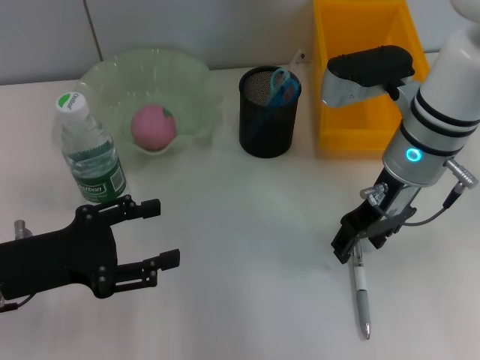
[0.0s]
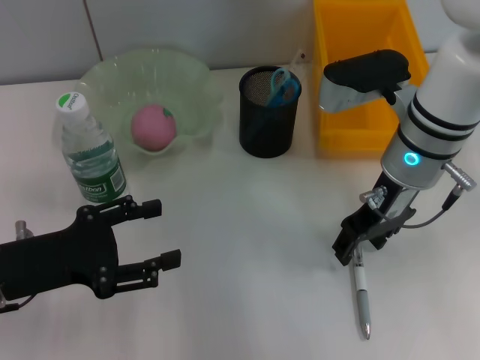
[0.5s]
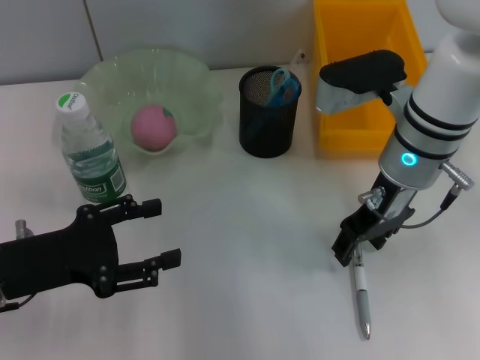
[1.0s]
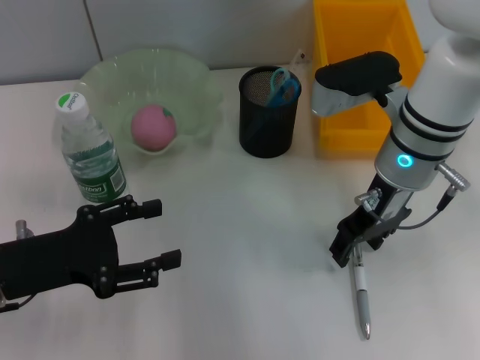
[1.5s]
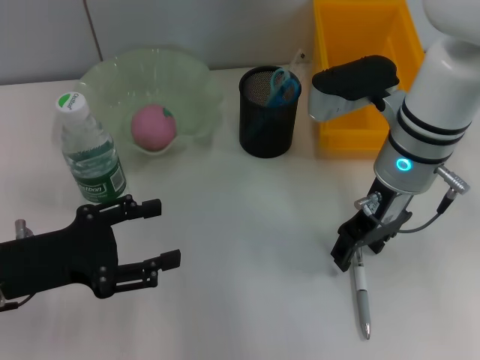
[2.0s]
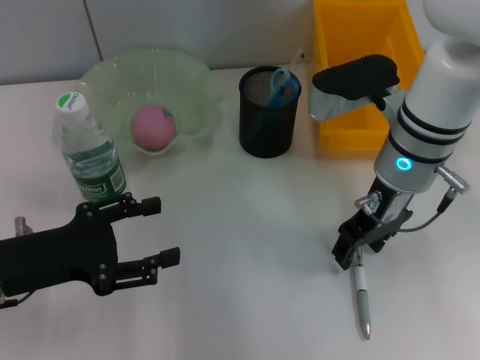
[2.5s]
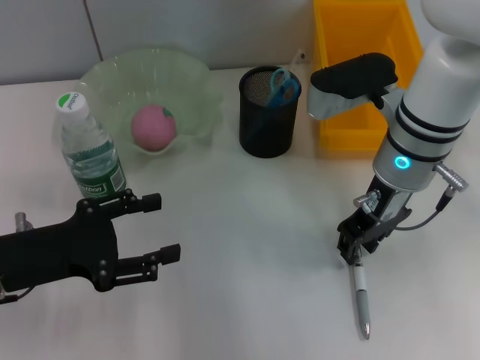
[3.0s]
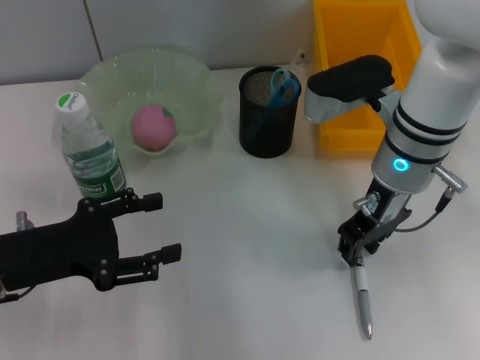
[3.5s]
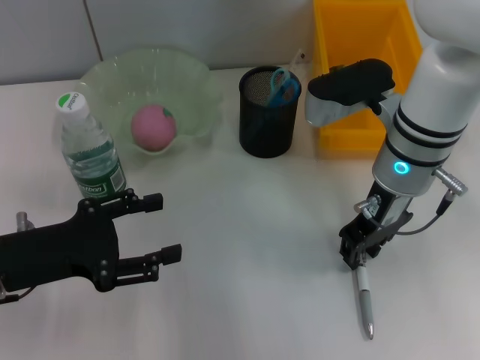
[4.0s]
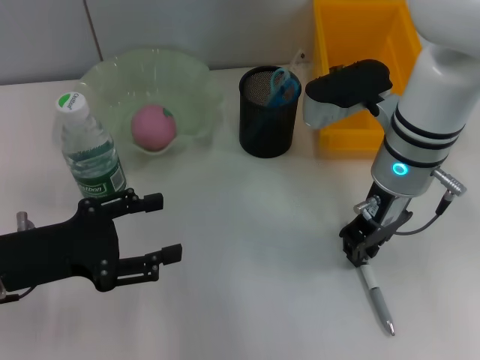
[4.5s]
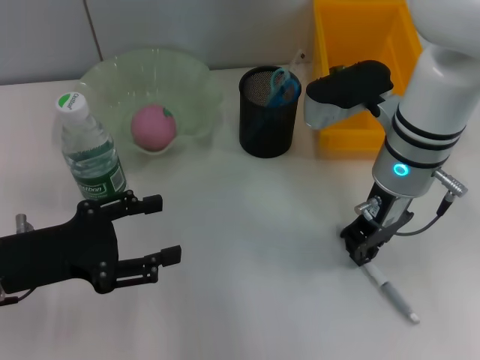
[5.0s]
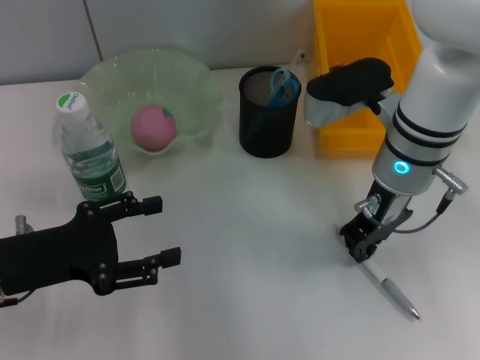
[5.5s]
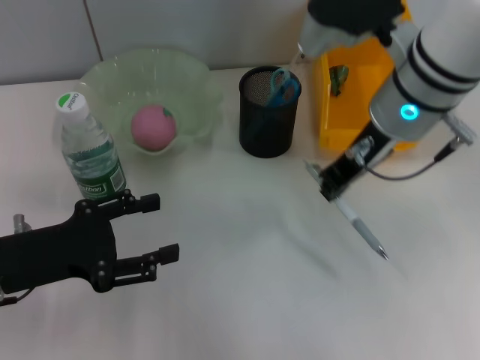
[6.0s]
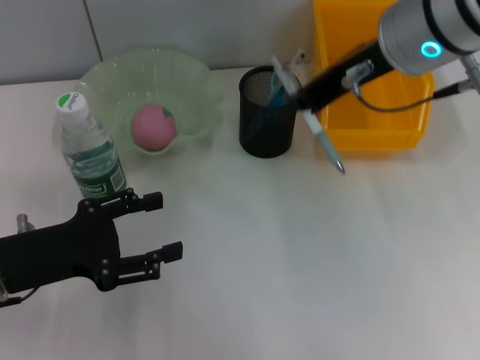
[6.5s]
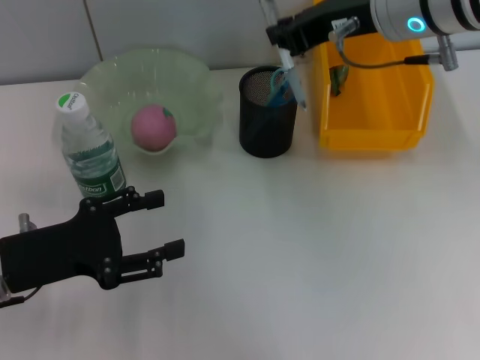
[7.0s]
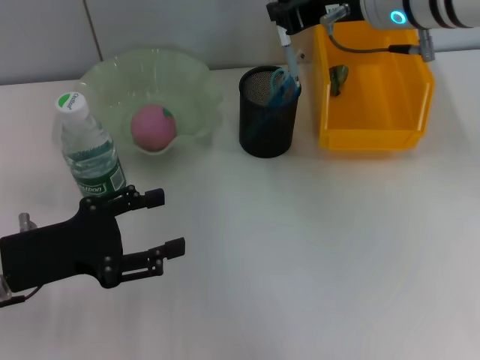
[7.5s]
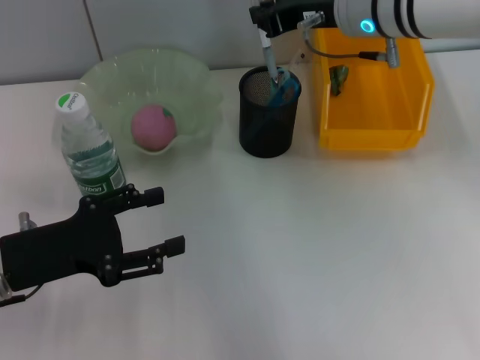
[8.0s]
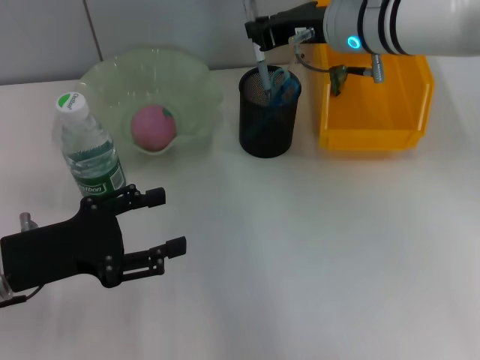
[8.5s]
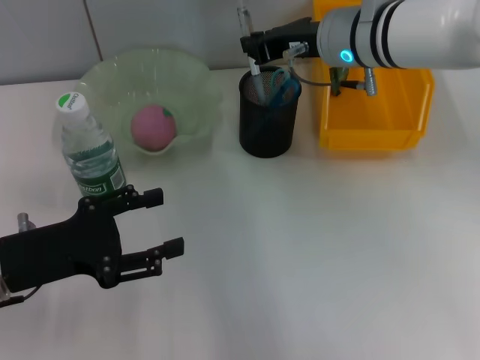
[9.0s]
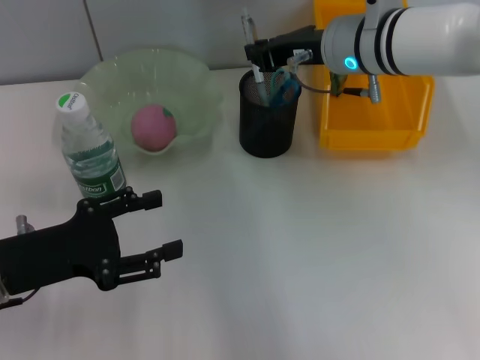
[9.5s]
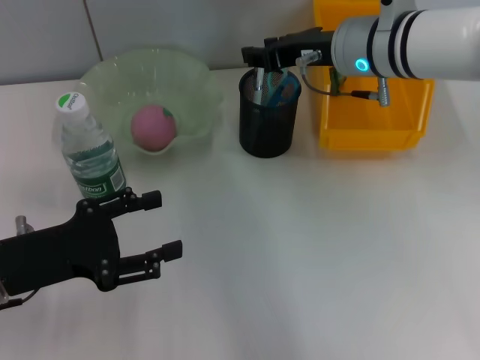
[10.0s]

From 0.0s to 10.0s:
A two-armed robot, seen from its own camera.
Step, from 0.0s to 5.0s: Grab the gray spring-action pen with the right hand.
Step, from 5.5s to 10.0s: Place the gray spring-action pen into the pen holder with the right hand.
From 0.0s to 2.0s: Neither gripper changes place.
From 2.0s to 4.0s: The right gripper closes up.
From 4.0s to 6.0s: The right gripper is displaced upward by roughly 5 cm, and closes its fingers.
From 6.0s to 8.0s: The right gripper shifts about 5 cm forward.
From 8.0s to 10.0s: The grippers make only small movements.

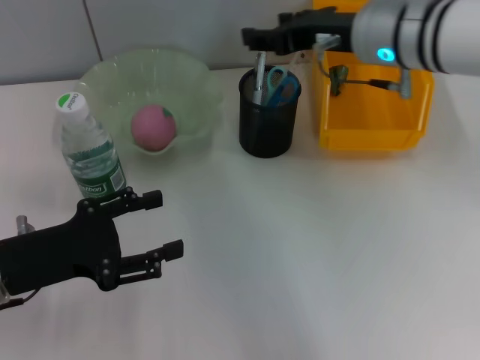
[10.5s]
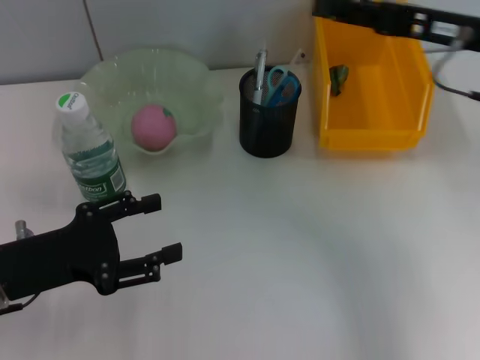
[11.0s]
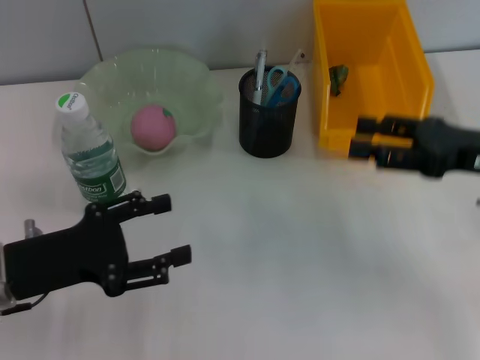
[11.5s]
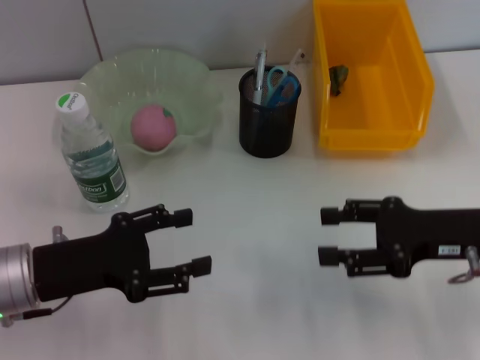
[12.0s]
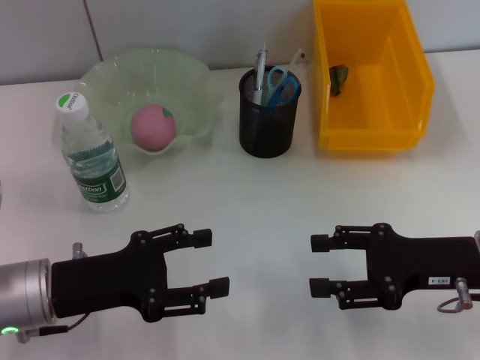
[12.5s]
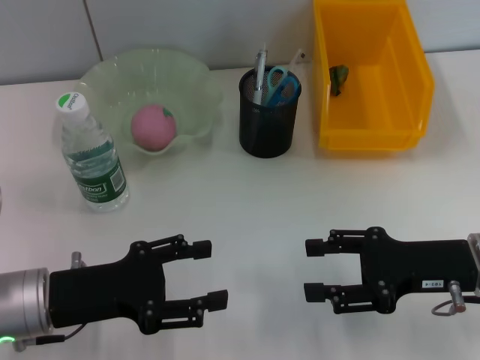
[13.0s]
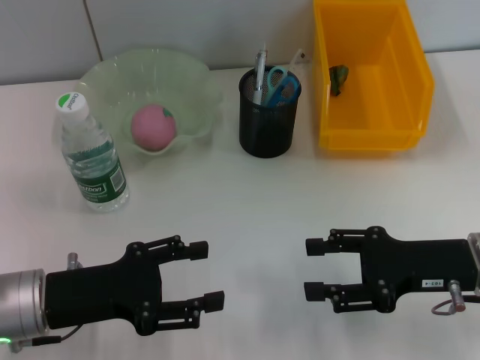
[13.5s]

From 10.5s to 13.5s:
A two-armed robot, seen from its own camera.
From 10.5s to 12.0s: The right gripper shifts approximately 20 cm backward, to the right and downward.
From 12.0s to 13.5s: The grippers stay close to where they were, moving slightly.

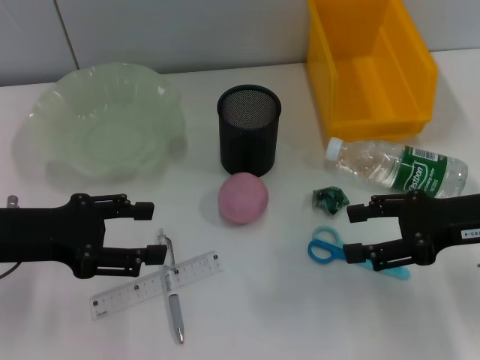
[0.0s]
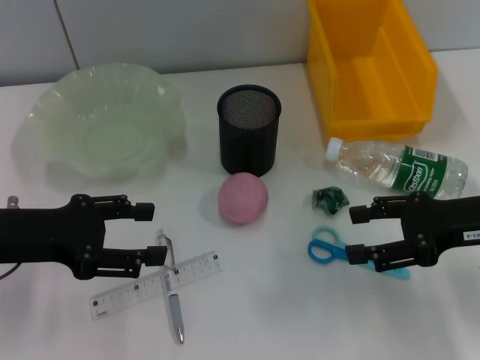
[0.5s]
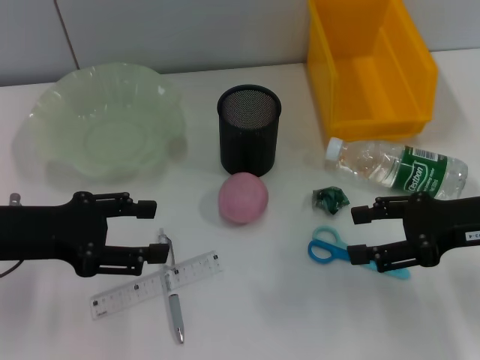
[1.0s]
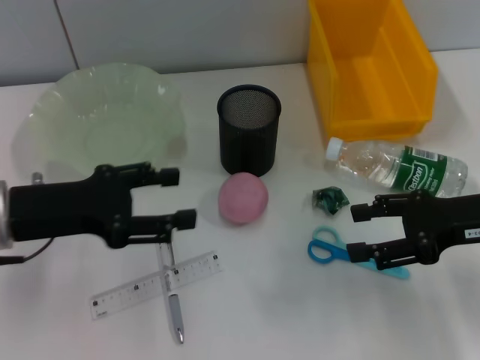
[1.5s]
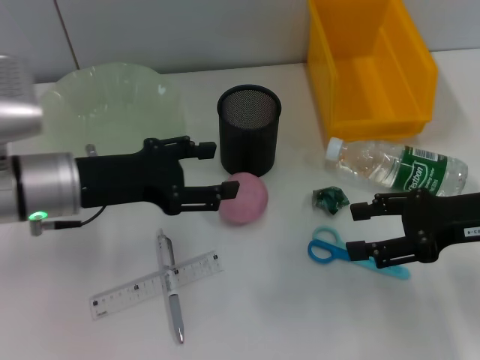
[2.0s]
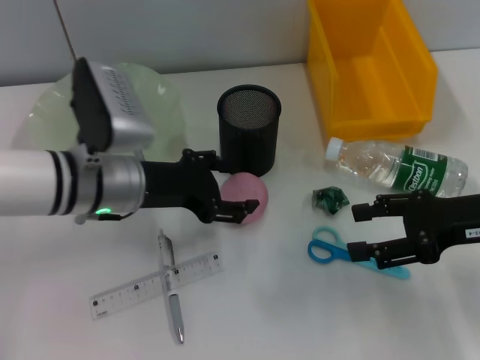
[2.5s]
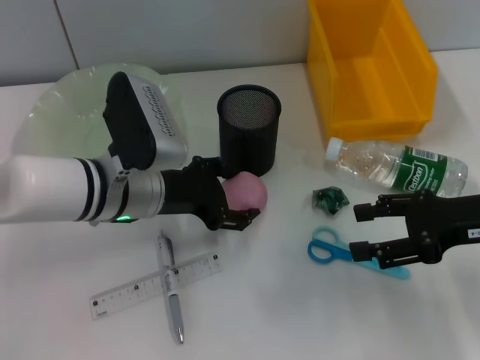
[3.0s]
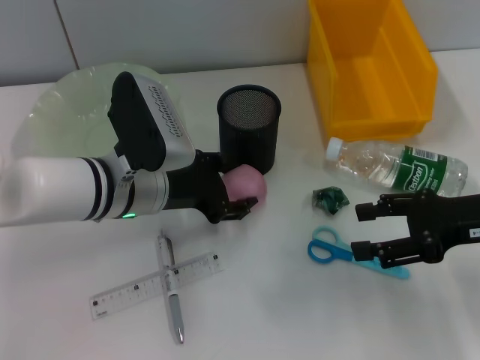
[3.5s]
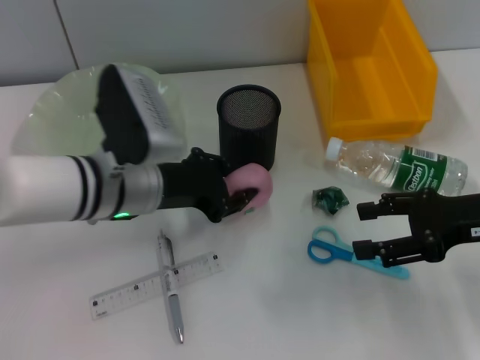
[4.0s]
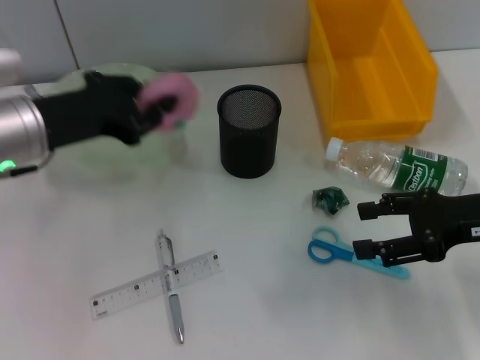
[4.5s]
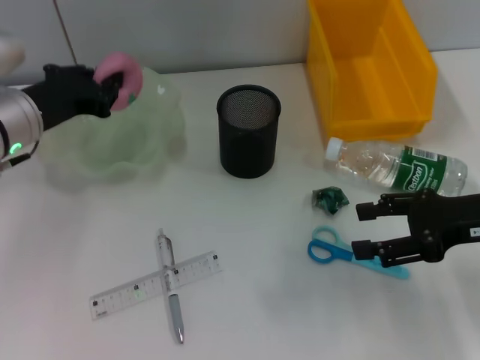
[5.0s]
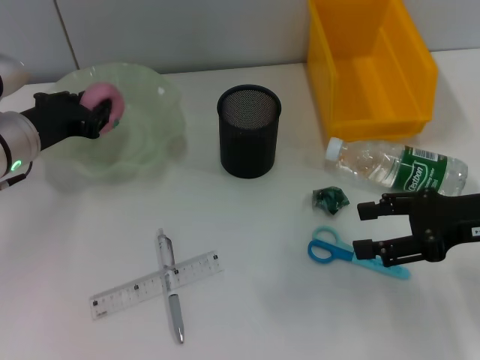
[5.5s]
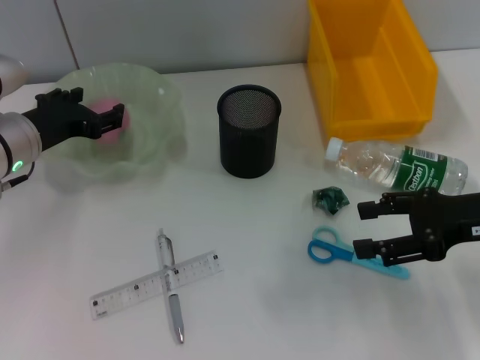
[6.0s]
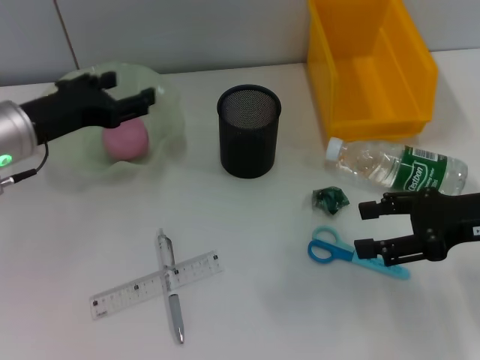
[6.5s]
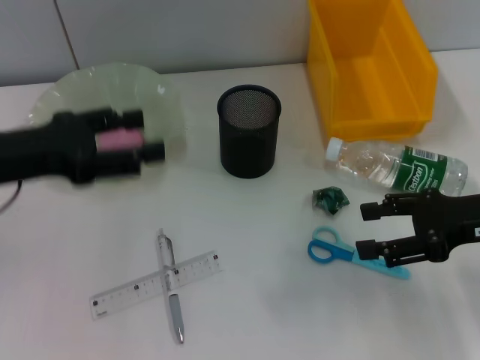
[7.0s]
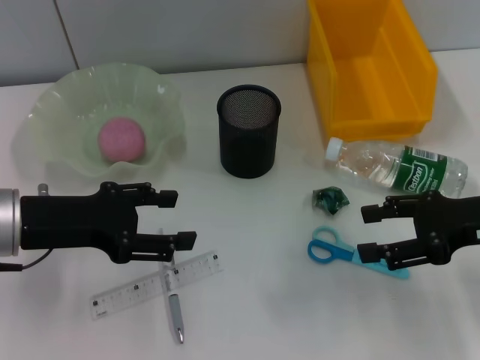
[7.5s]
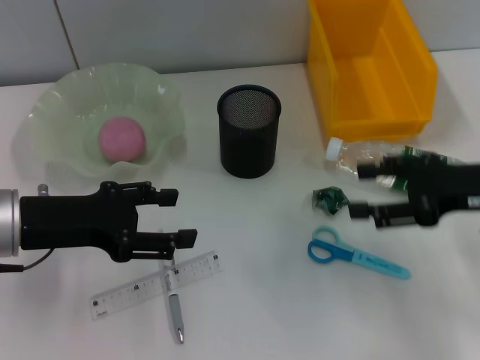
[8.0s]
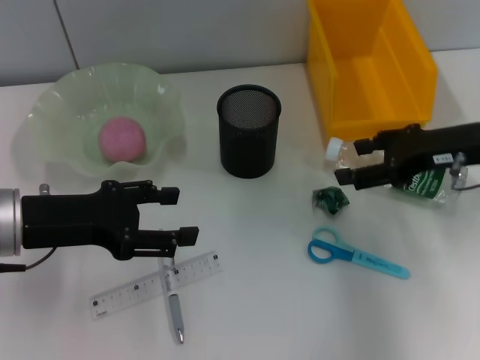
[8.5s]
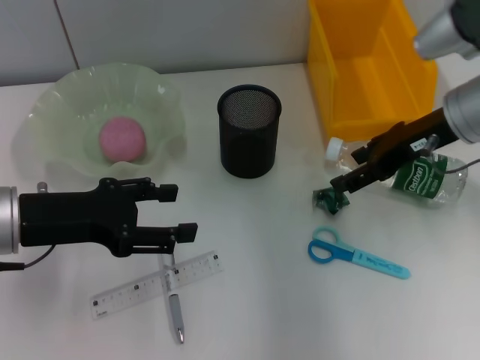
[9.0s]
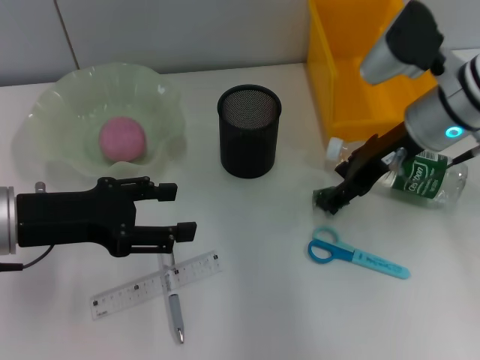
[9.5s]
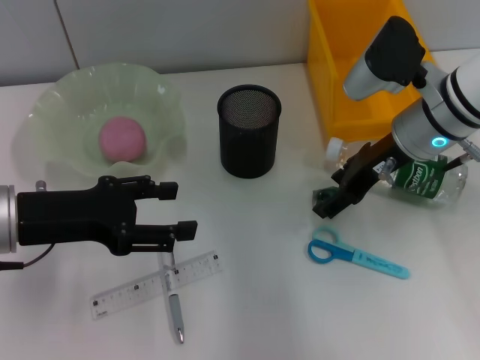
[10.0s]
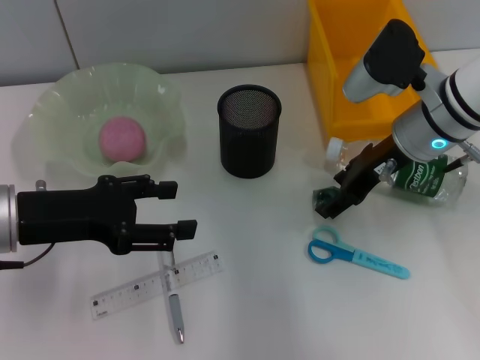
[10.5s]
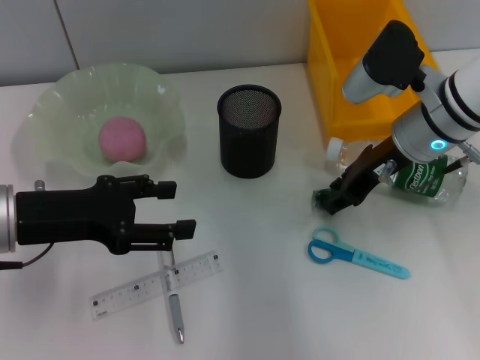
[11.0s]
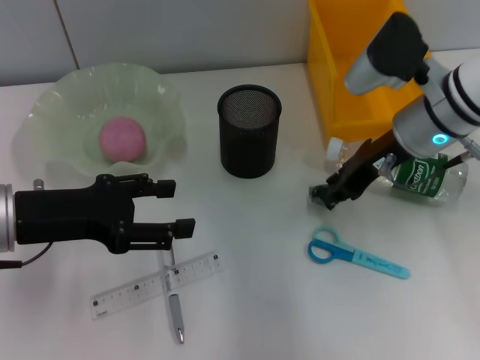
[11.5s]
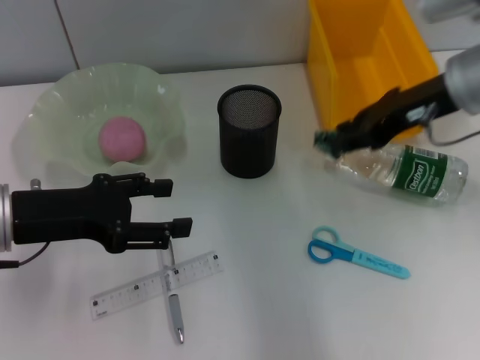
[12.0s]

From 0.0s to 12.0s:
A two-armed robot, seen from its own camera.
Step, from 0.0s to 3.5s: Grab the peach with the left hand.
Step, from 4.0s to 6.5s: Place the peach into the fruit bowl with the left hand.
Step, from 7.0s to 11.0s: Grab the plastic with the right hand.
From 0.0s to 2.0s: The left gripper is displaced to the right by about 5 cm.
From 2.0s to 4.0s: The left gripper goes approximately 5 cm to the right, and closes.
From 4.0s to 6.0s: The left gripper heads to the left, covering approximately 10 cm.
From 6.0s to 8.0s: The left gripper heads backward, covering approximately 10 cm.
From 8.0s to 10.0s: The right gripper heads to the left and forward, covering approximately 15 cm.
From 10.0s to 12.0s: The right gripper moves upward, some 5 cm, and closes its fingers.
